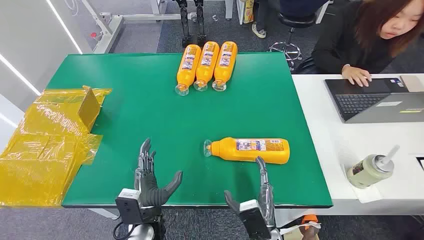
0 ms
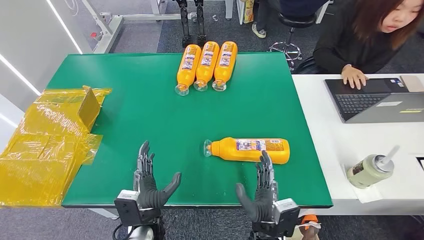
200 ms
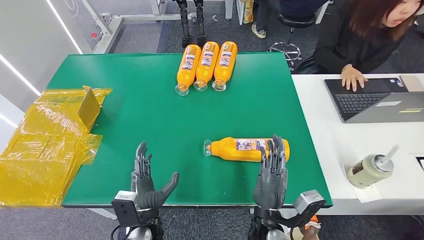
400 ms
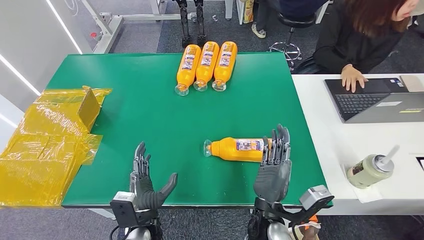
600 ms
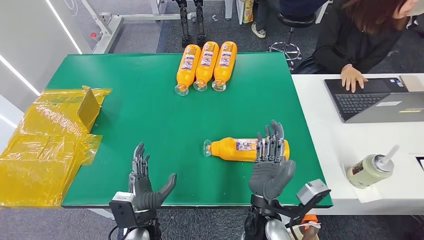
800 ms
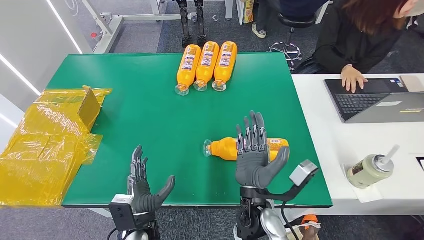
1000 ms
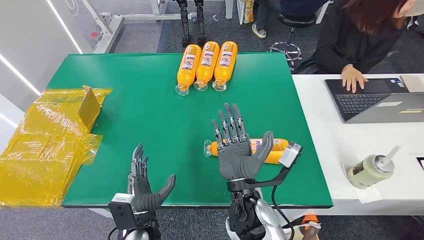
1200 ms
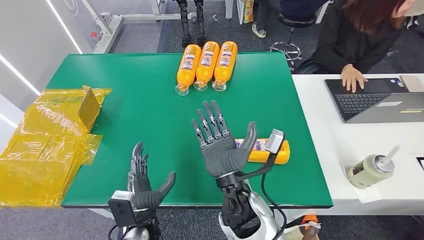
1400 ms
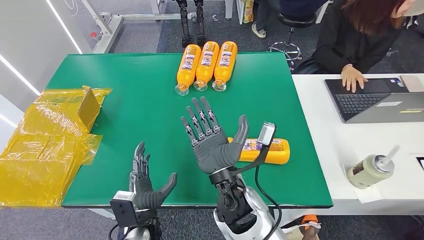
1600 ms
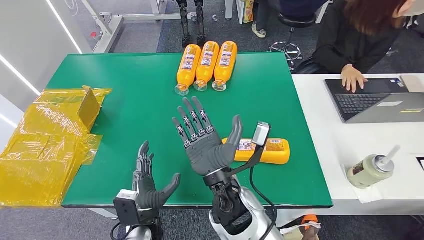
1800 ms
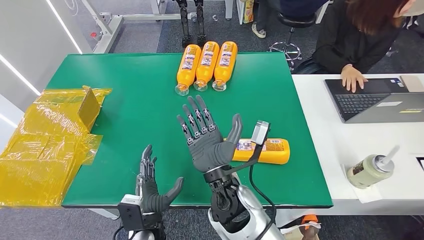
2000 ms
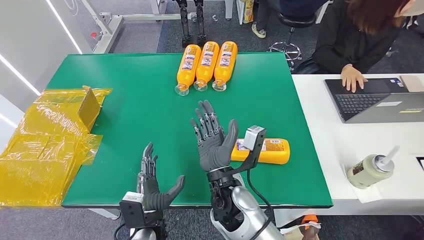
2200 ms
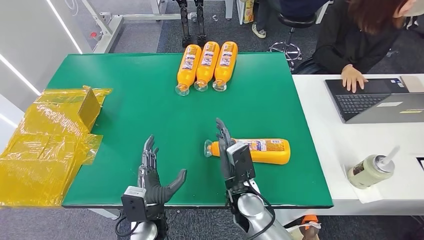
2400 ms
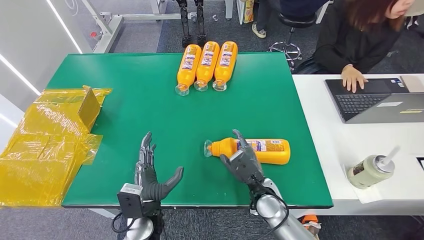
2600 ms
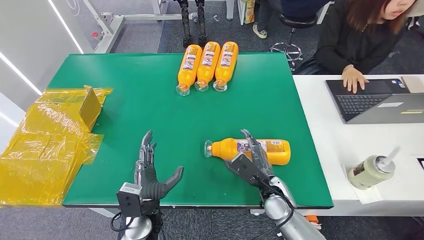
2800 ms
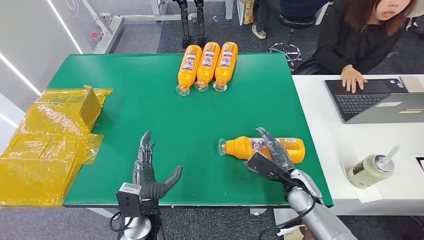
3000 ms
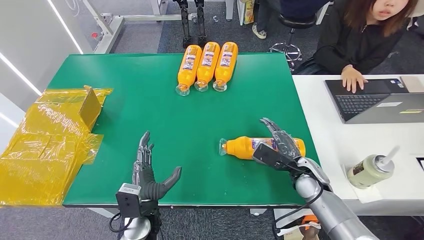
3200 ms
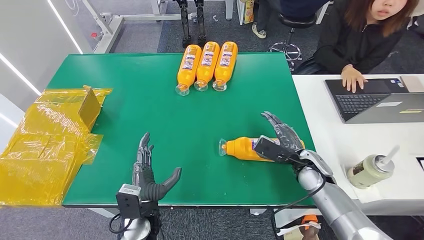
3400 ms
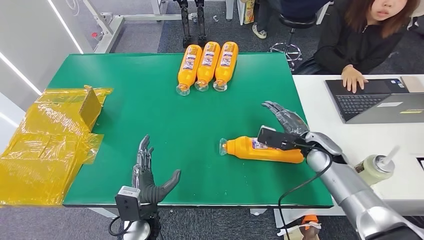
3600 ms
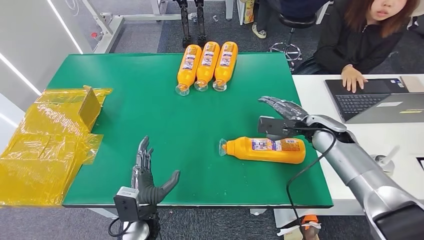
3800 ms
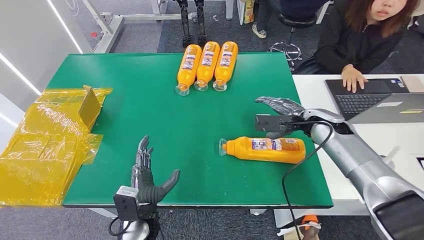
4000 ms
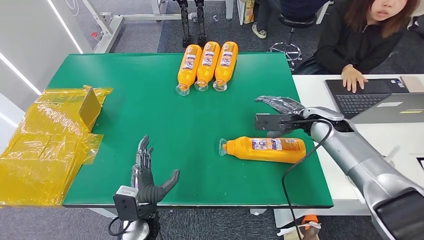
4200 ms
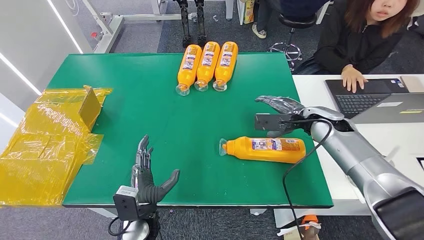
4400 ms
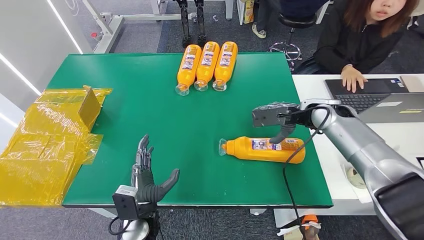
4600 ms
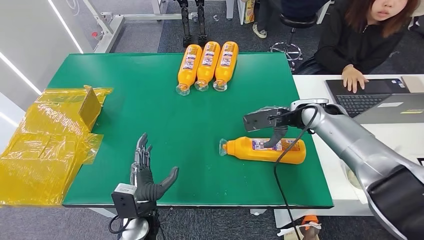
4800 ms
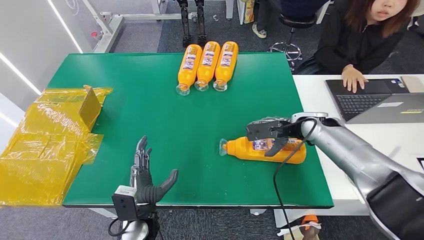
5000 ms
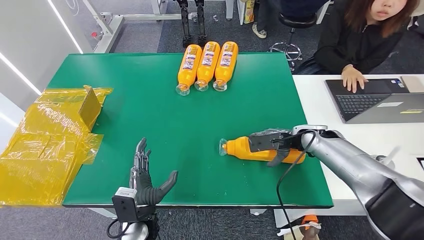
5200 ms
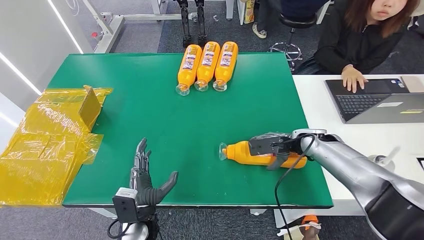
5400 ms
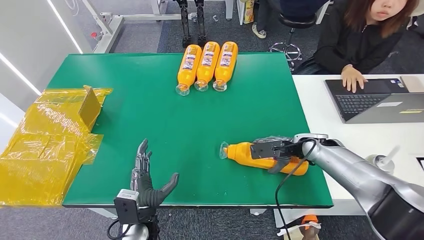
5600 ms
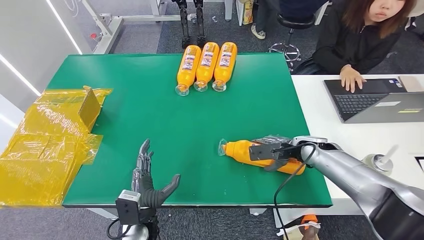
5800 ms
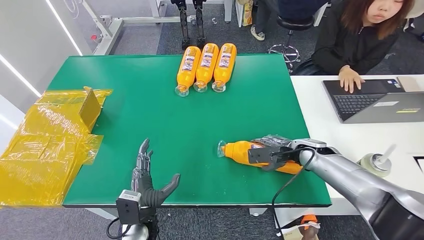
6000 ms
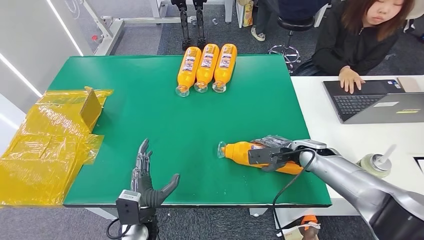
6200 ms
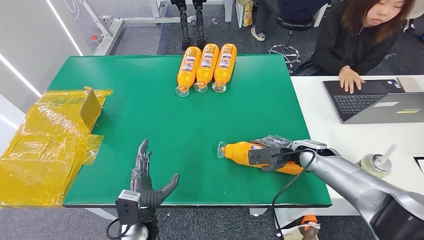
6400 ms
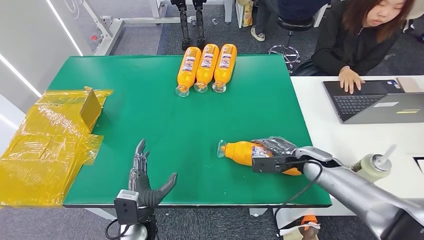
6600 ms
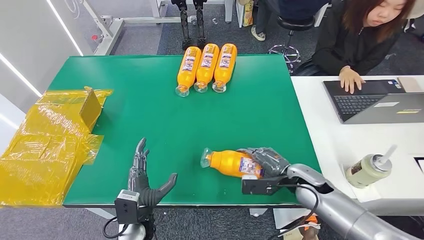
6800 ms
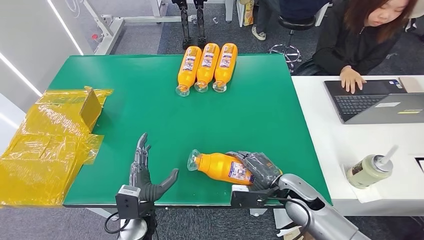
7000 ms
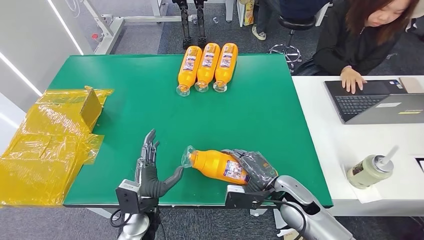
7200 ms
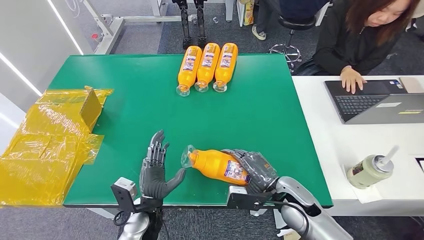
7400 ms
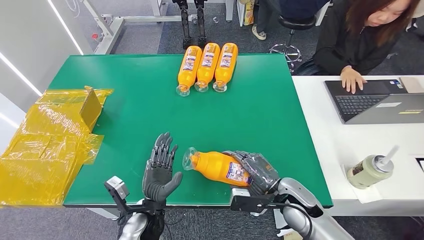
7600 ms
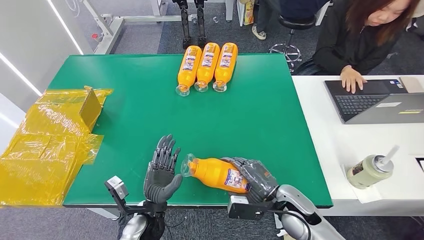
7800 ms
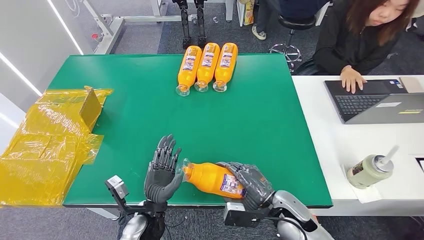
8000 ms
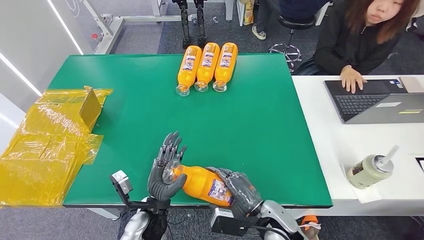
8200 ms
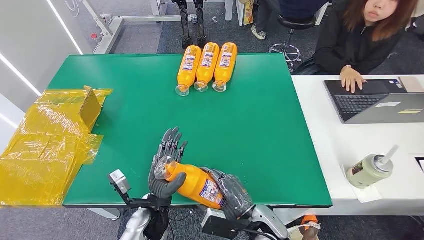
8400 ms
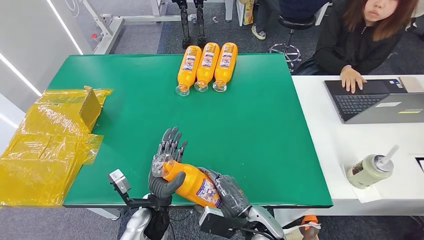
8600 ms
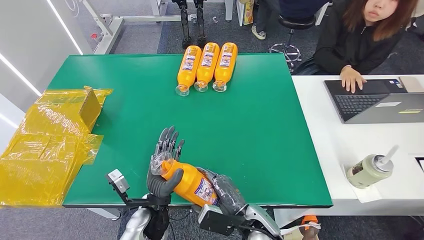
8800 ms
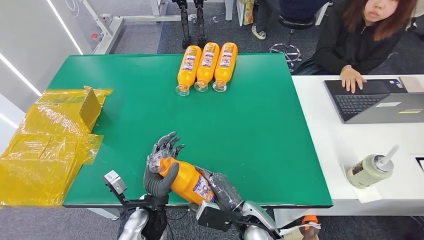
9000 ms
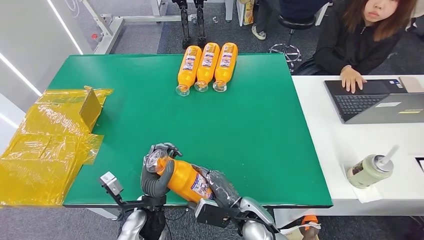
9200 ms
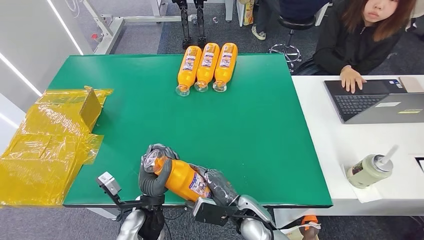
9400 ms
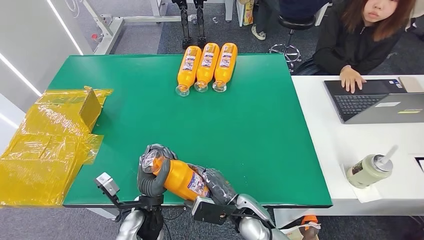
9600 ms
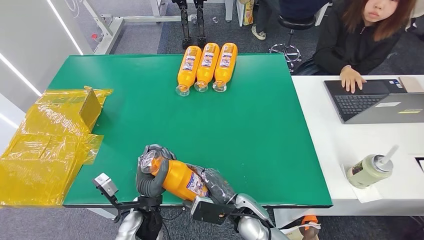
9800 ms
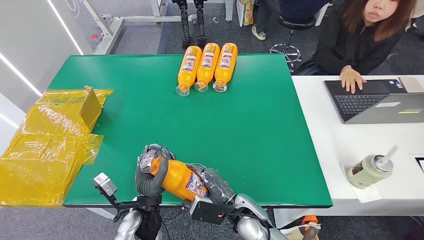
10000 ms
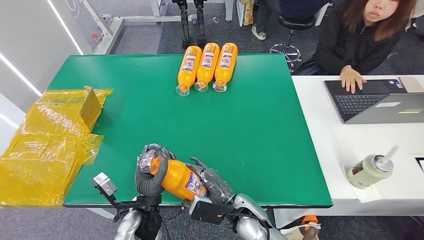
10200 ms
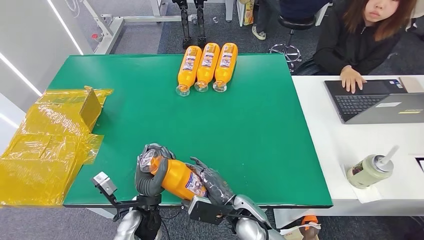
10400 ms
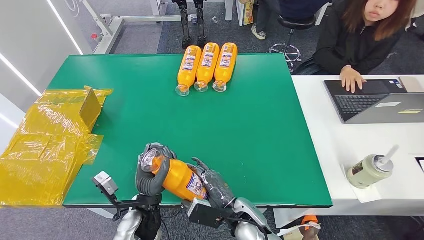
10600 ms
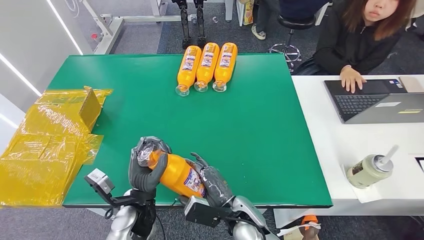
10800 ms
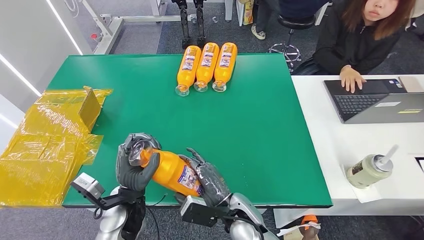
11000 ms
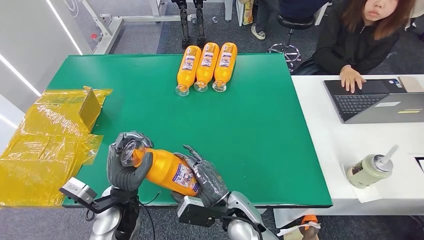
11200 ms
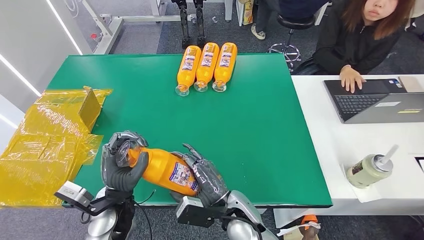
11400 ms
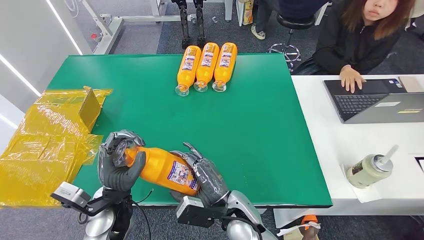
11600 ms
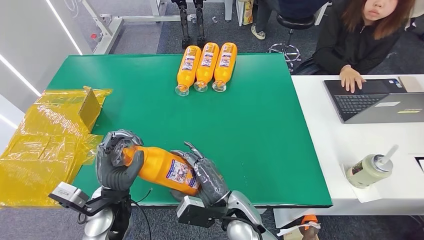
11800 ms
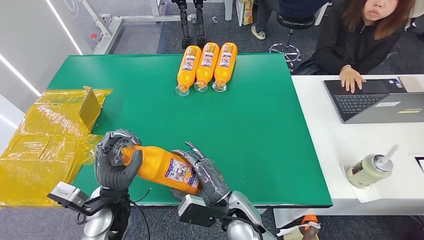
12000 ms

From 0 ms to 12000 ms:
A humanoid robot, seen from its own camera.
Step, from 0 ms to 7600 ms: Pick up the bottle from the table.
From 1600 ms to 3000 ms: The right hand heads to the right and downward, covering roughly 25 cm.
From 3000 ms to 4400 ms: The right hand travels upward, forward and to the right by approximately 20 cm.
From 4400 ms to 6000 ms: The right hand is displaced downward by roughly 10 cm.
From 6000 ms to 7600 ms: The right hand shifts roughly 15 cm backward and to the left.
From 7600 ms to 9000 ms: The right hand shifts about 15 cm to the left and backward.
From 9000 ms to 10400 ms: The hands make only small movements.
From 10400 ms to 12000 ms: The left hand moves to the left and upward, some 10 cm.

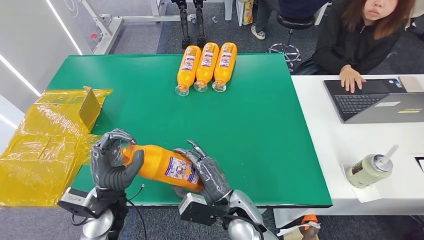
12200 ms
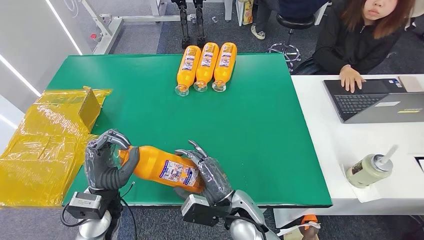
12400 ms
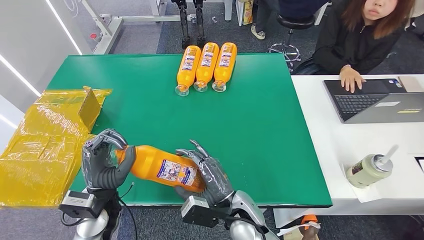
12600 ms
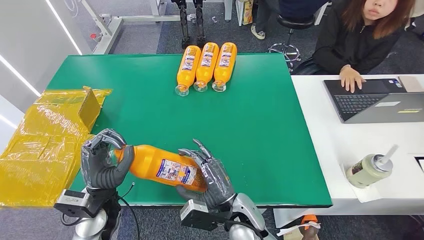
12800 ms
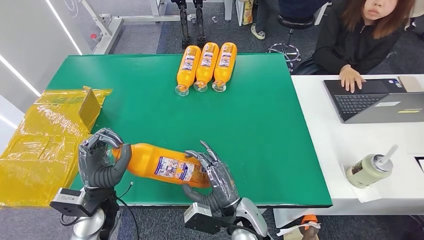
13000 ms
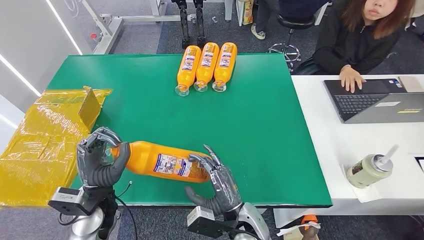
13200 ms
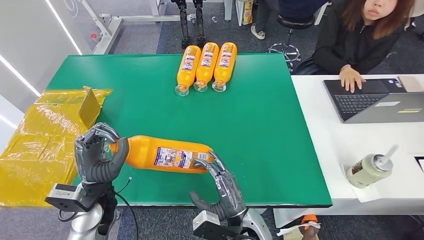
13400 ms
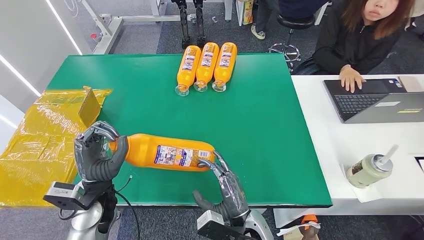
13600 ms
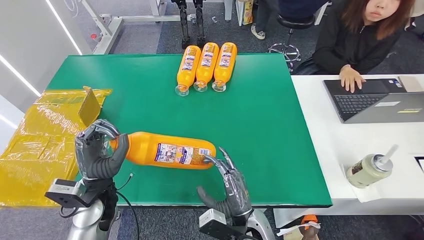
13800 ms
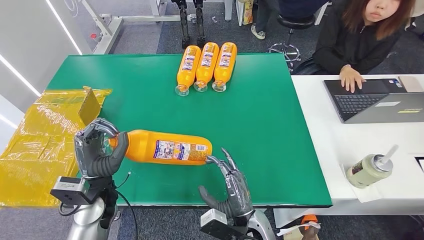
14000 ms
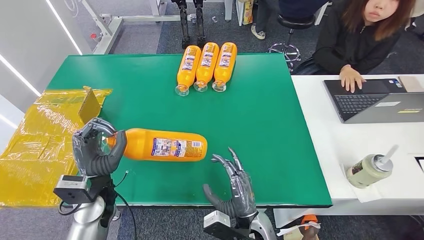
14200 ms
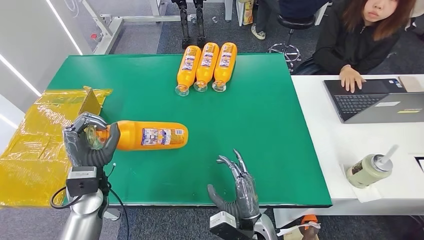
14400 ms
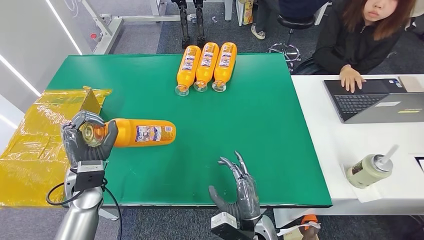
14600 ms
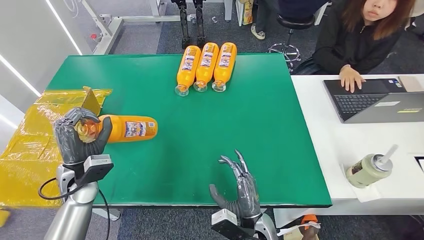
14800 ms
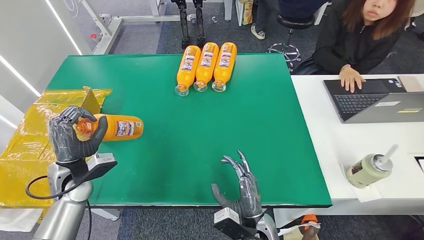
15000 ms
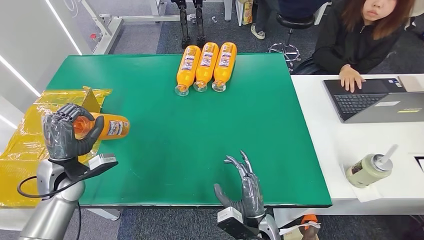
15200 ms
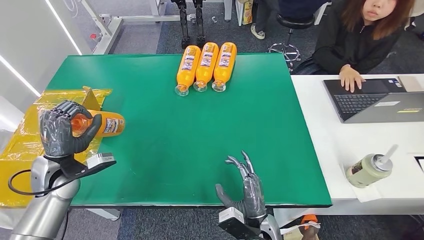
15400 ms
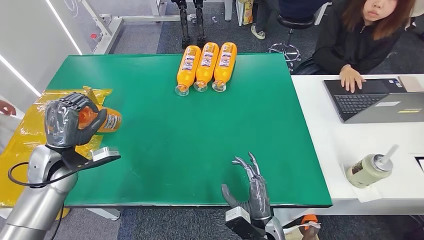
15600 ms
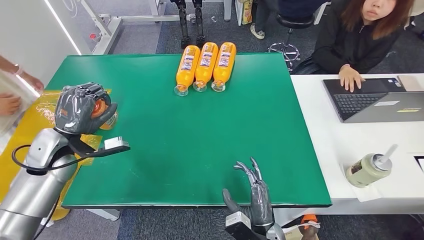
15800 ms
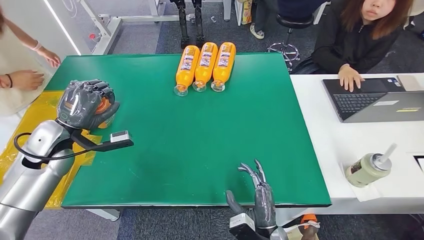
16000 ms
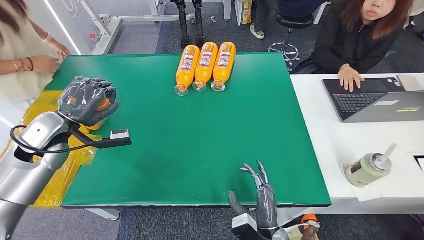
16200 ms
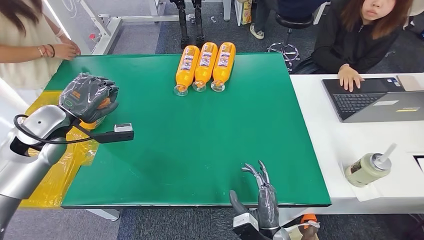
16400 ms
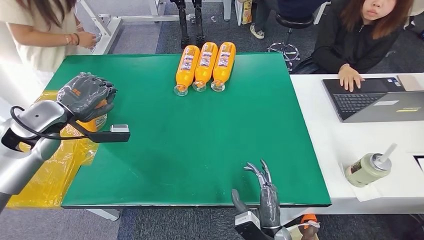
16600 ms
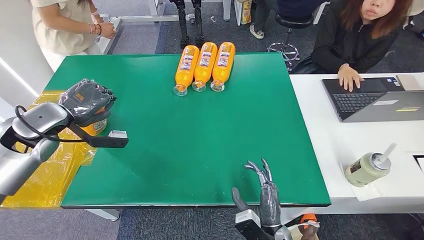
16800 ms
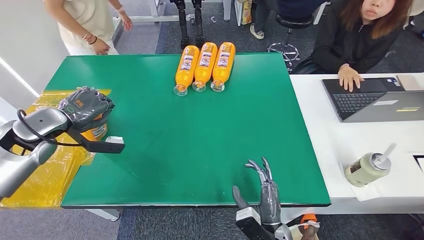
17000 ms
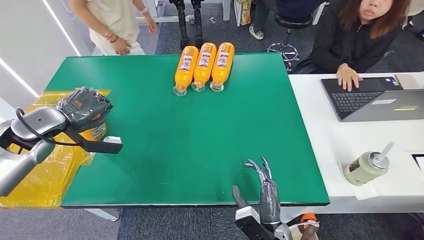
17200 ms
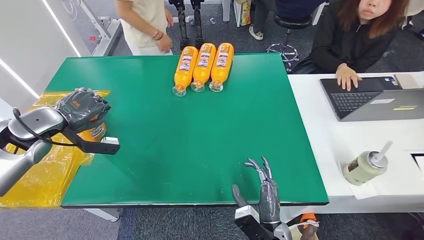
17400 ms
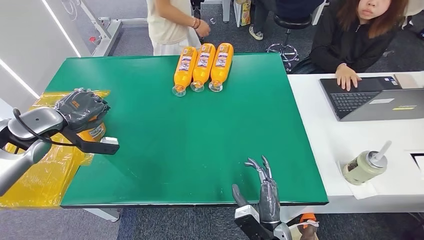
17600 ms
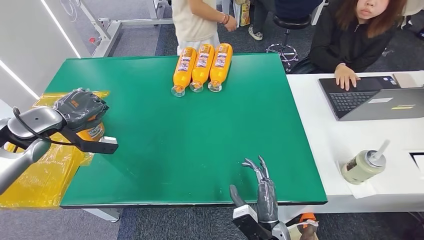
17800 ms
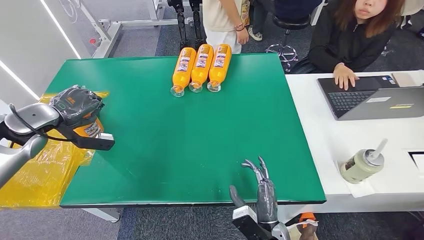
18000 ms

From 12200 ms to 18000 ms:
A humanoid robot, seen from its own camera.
From 12200 ms to 13600 ms: The right hand ends up approximately 5 cm from where it was.
From 13600 ms to 15000 ms: The left hand is displaced to the left and forward by roughly 10 cm.
